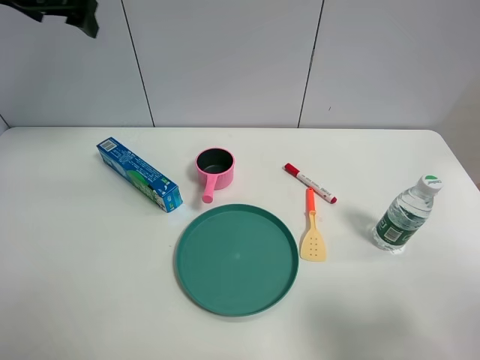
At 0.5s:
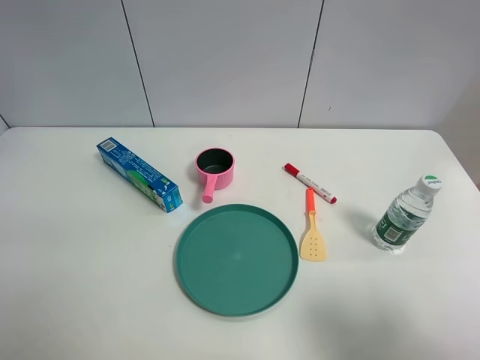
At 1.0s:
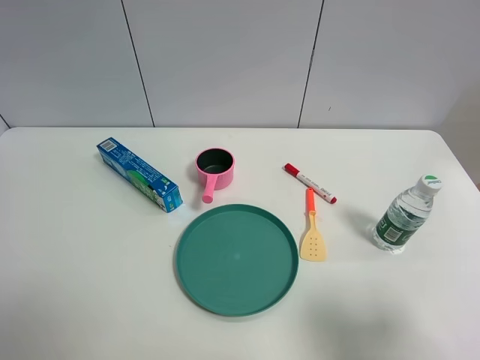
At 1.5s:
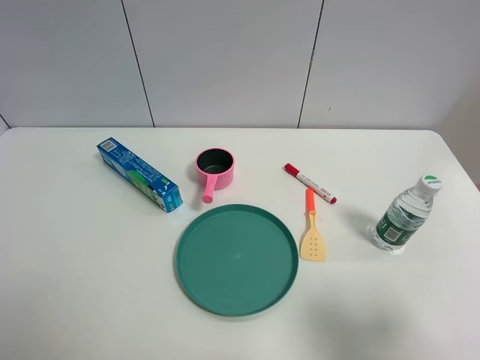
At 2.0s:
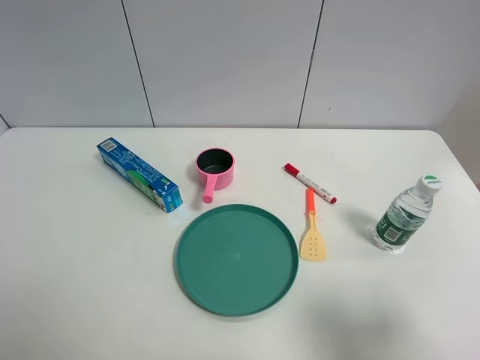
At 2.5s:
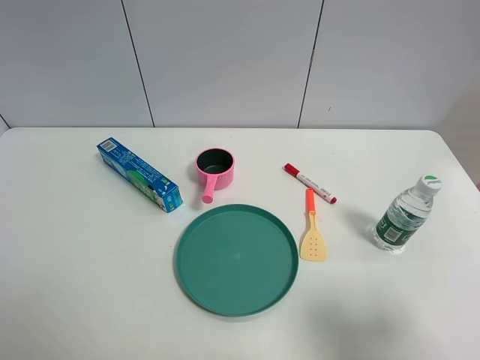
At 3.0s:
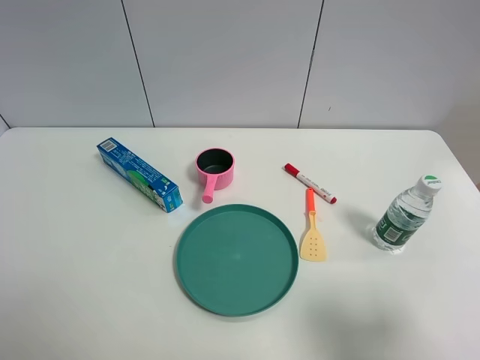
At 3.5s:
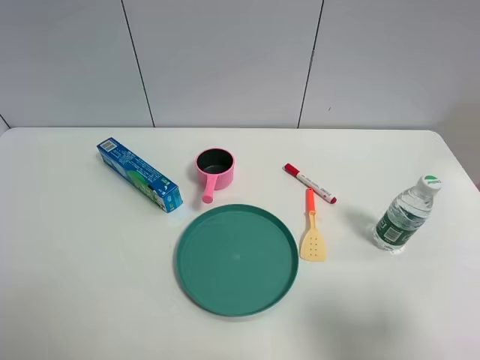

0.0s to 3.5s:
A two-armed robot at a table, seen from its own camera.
Task of the whole recording: the gripper move the object.
0.0s to 2.0s: The left gripper is displaced backward by roughly 40 cm.

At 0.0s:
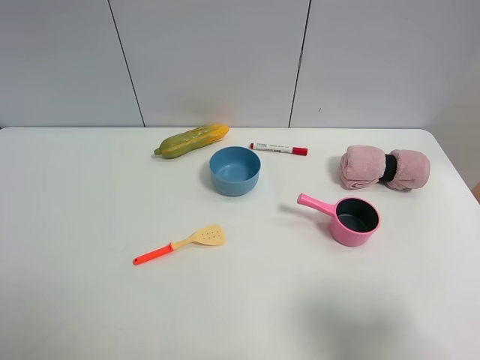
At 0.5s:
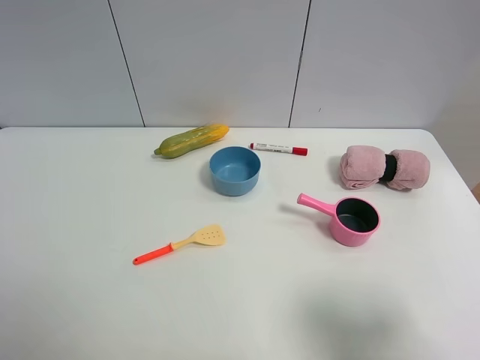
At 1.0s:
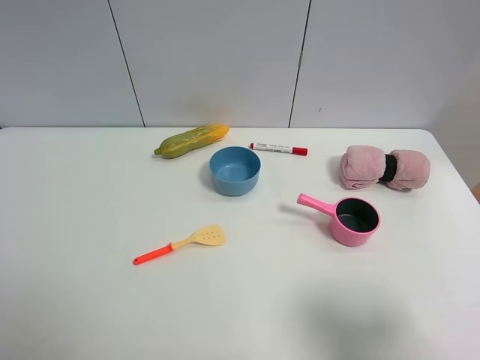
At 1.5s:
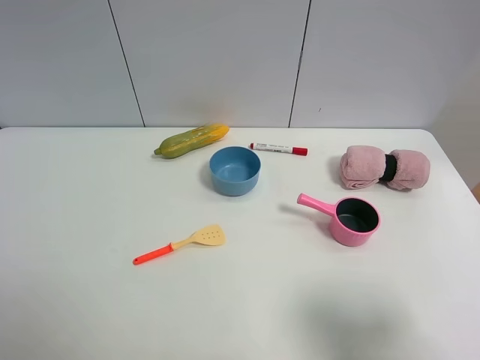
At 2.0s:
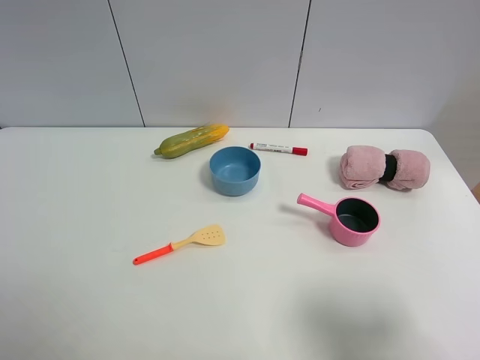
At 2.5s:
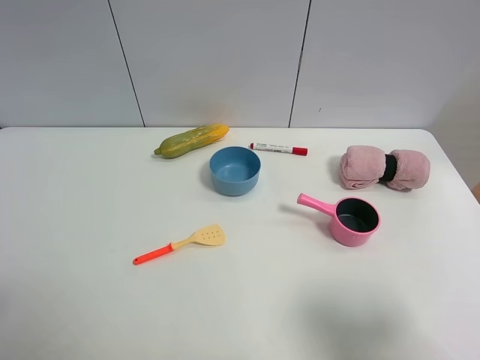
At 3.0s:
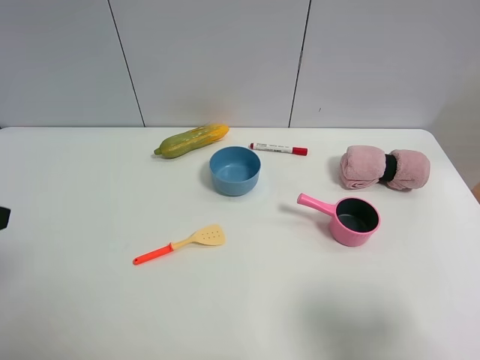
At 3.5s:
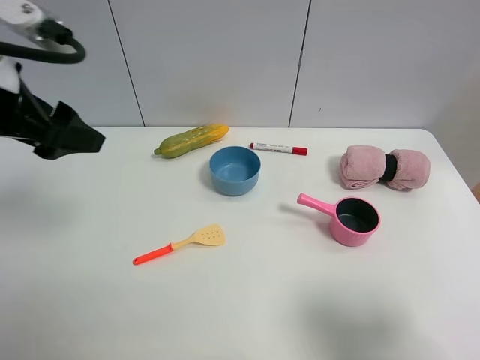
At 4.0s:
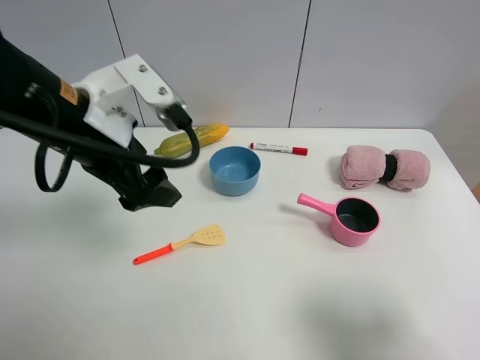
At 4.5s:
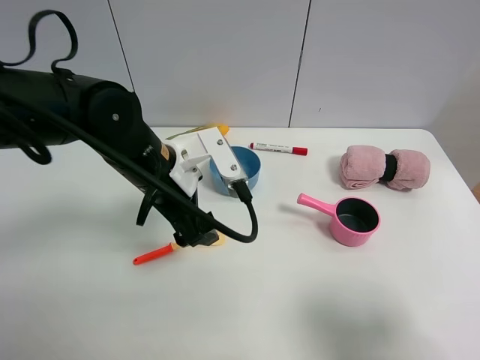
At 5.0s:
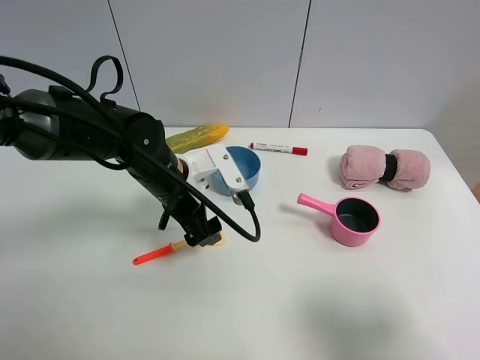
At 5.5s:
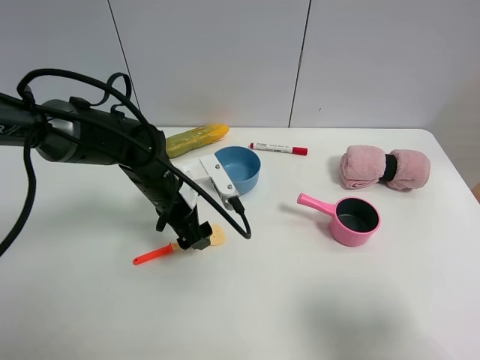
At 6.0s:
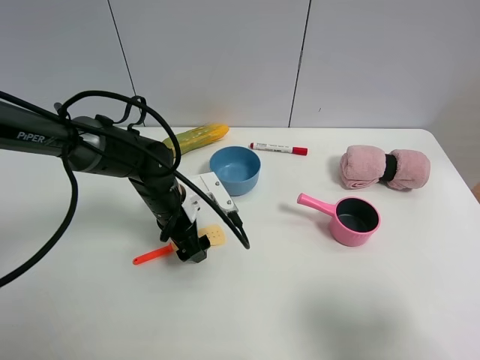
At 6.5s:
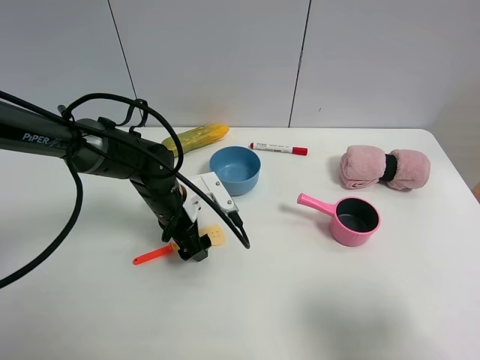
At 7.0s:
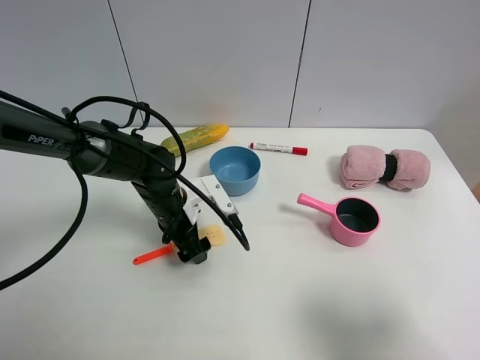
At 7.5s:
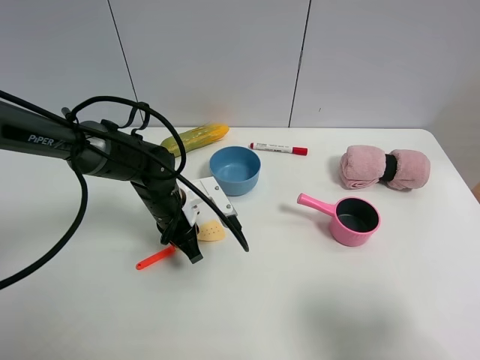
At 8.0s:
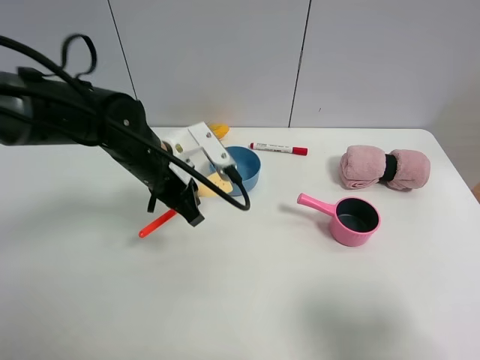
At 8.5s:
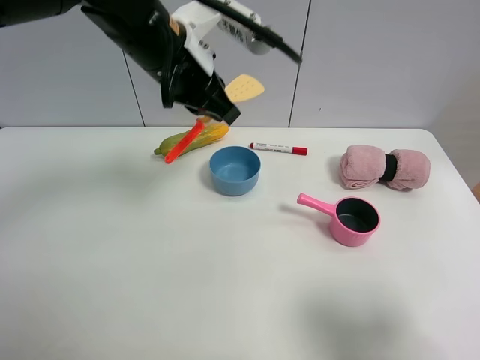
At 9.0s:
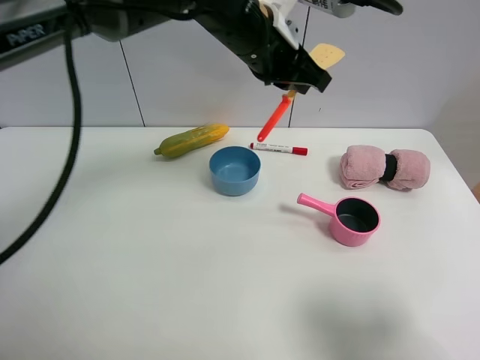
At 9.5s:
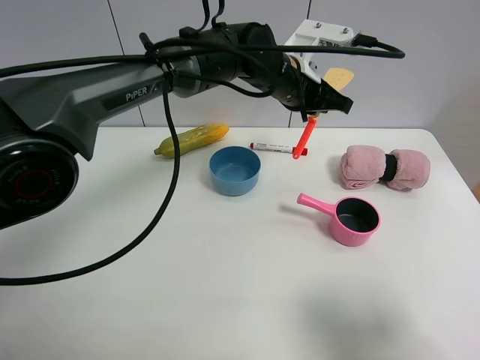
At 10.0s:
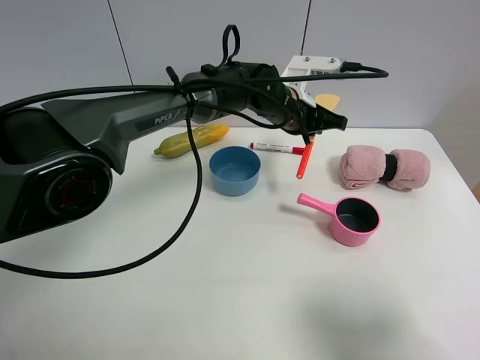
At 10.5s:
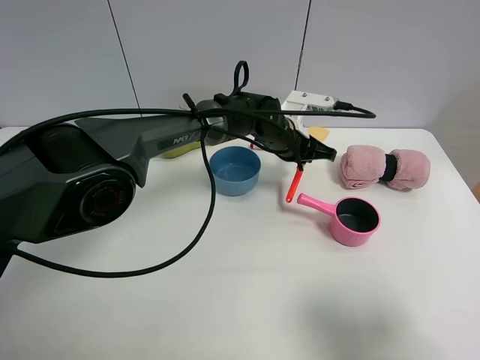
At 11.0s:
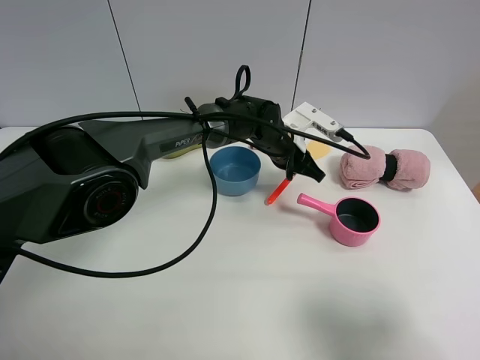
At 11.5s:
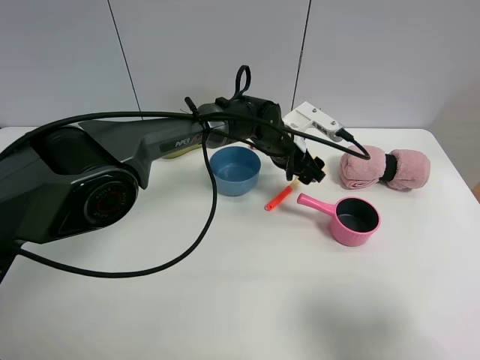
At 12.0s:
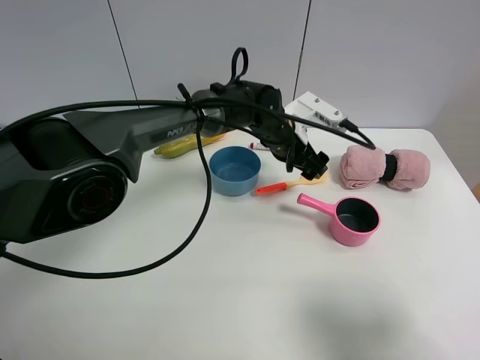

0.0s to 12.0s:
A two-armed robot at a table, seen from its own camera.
Task of the whole recording: the gripper move the object.
Step, 0.0s to 7.0s: Grasp the cooking shovel with the left gripper.
Step, 7.5s to 11.0s: Place the cooking shovel on the table with the left gripper.
0.0s to 2.0s: Both grippers stay about where they are.
2.0s to 4.0s: The left gripper heads forward and to the right, covering some 30 cm.
4.0s to 6.0s: The left gripper travels downward by about 20 cm.
6.0s to 8.0s: The left gripper moves upward, some 10 cm, and closes up.
8.0s to 10.0s: The left gripper moves to the right and forward, roughly 20 cm.
10.0s to 12.0s: The left gripper opens.

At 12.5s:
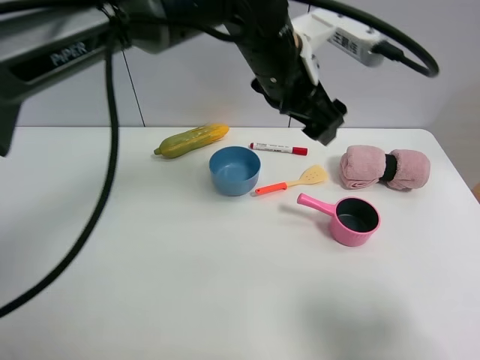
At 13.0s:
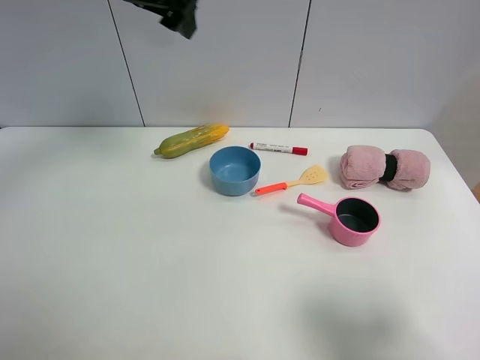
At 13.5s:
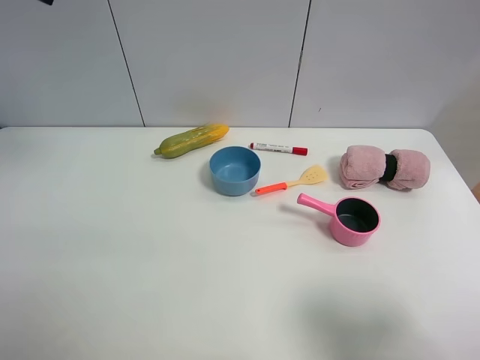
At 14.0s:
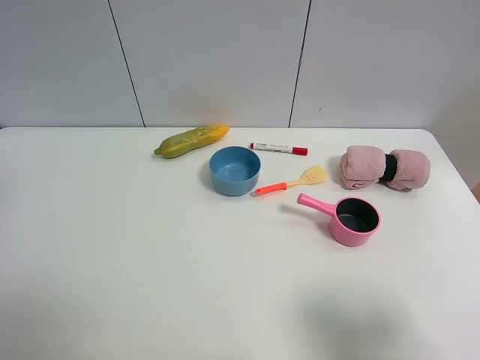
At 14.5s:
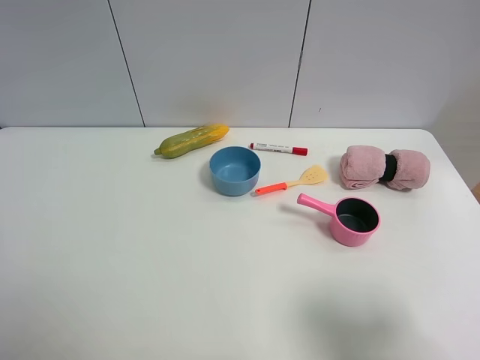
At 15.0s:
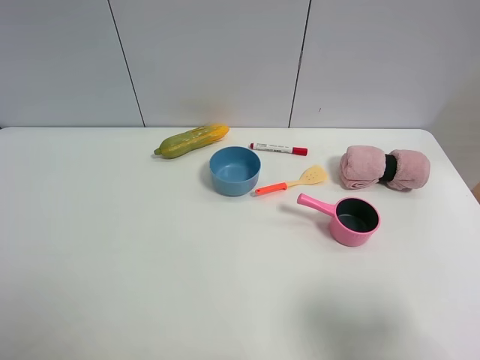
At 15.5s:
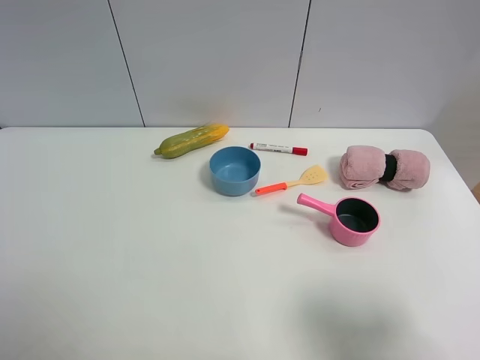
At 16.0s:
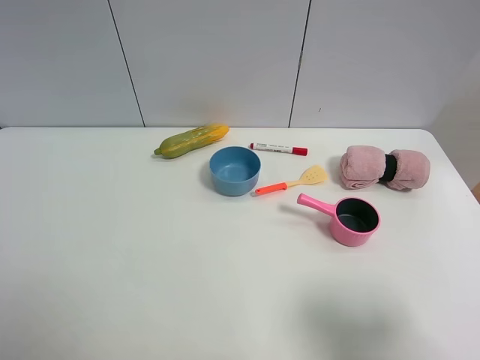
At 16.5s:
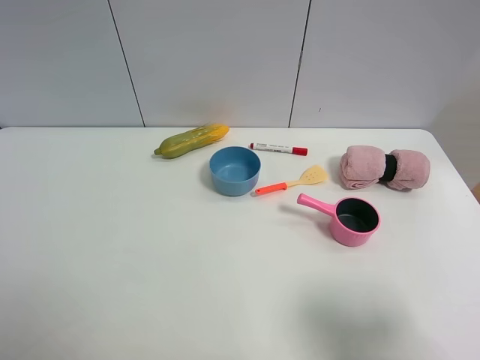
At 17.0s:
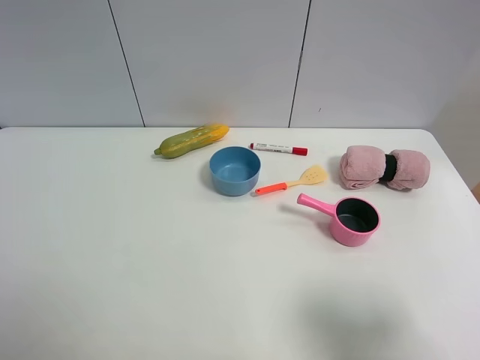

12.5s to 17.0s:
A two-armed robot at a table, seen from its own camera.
Task of the whole recording: the gripper move the object.
12.5s to 14.5s: The left gripper moves to the left and backward, roughly 40 cm.

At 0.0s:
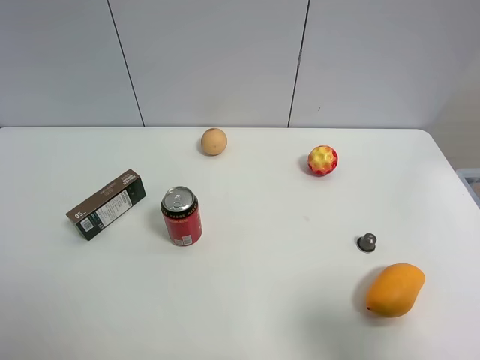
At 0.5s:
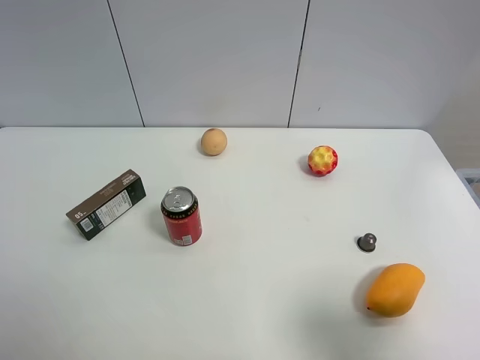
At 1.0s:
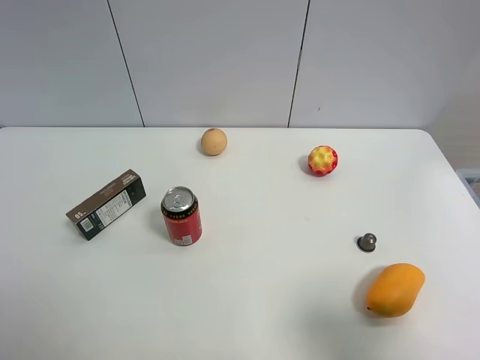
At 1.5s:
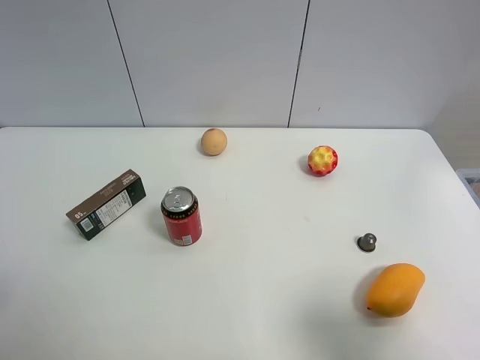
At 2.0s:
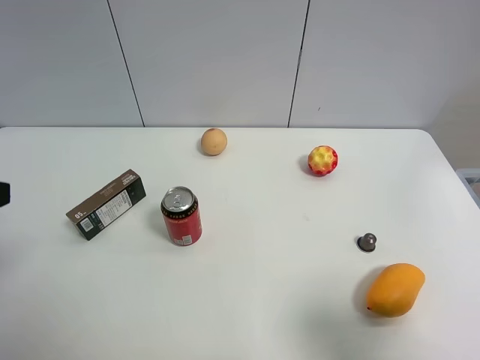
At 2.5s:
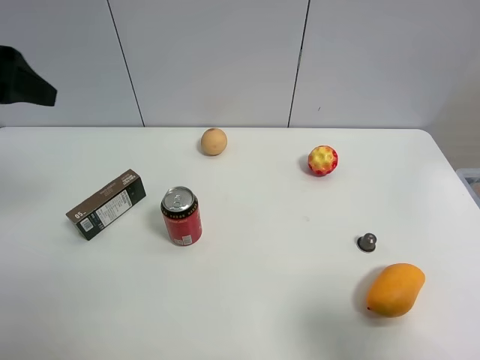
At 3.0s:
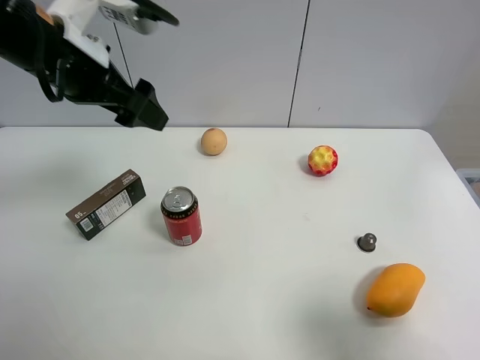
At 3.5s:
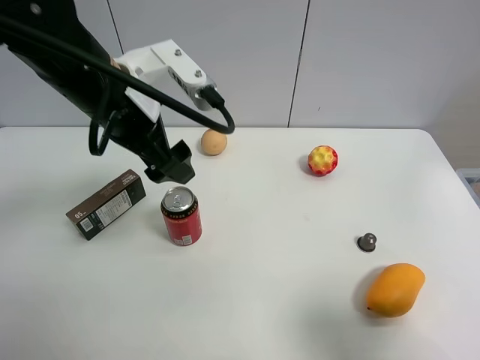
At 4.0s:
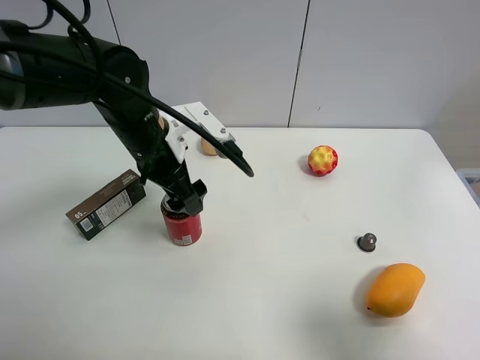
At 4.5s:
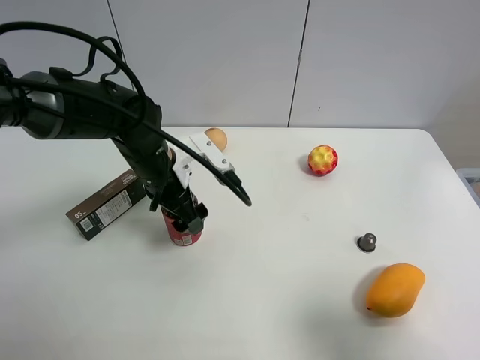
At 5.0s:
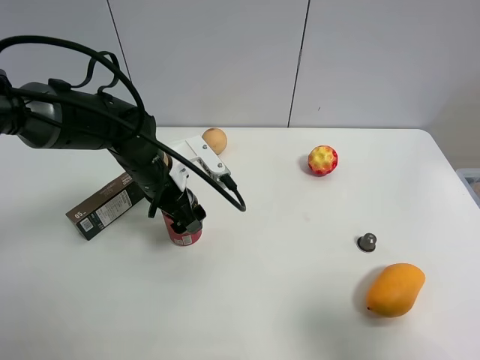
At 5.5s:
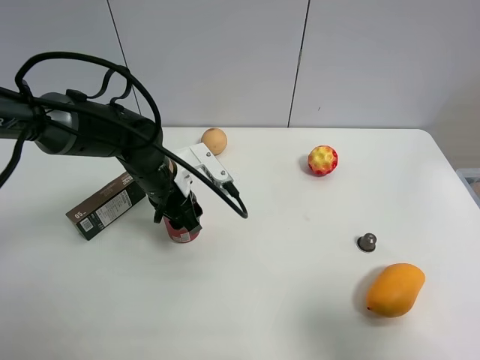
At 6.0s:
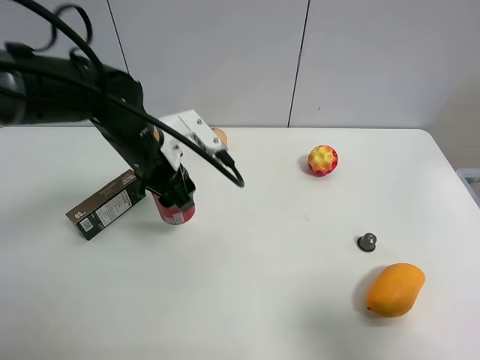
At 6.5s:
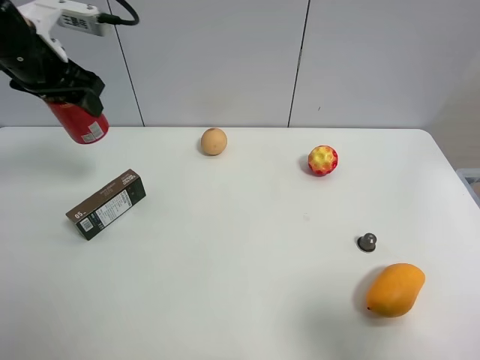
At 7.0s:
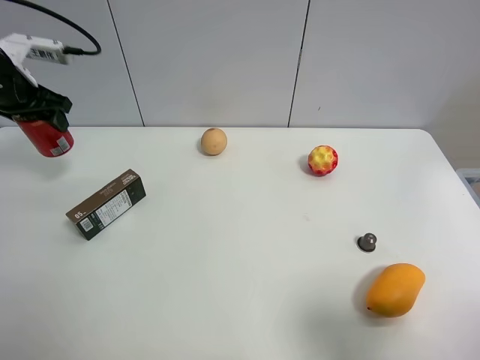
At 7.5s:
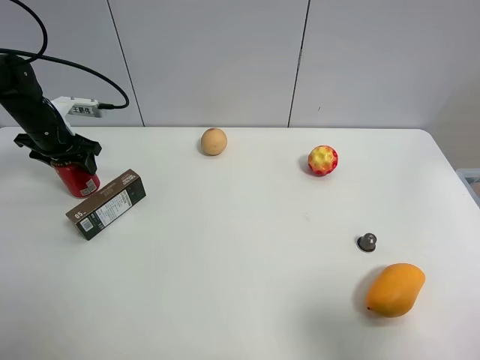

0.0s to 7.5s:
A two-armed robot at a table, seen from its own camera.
Task of the whole recording: the gripper move the object.
Step, 0.0s to 5.5s: Grasp the Jia Duo Bao with the left gripper.
2.0s to 4.0s: The left gripper travels to the right, forward and downward by some 30 cm.
4.0s to 5.5s: The left gripper travels downward by some 10 cm, and closes up.
5.5s to 7.5s: The left gripper travels to the left and forward by some 25 cm.
